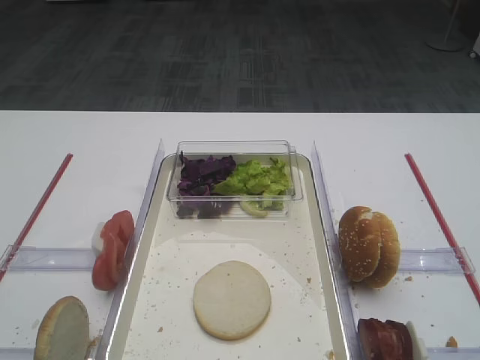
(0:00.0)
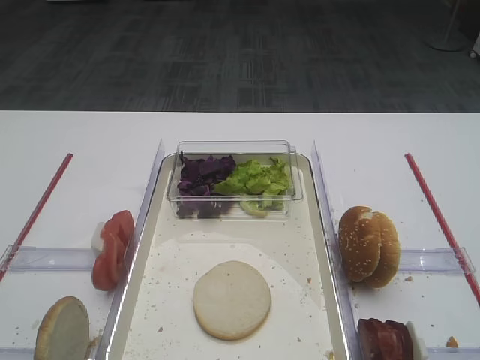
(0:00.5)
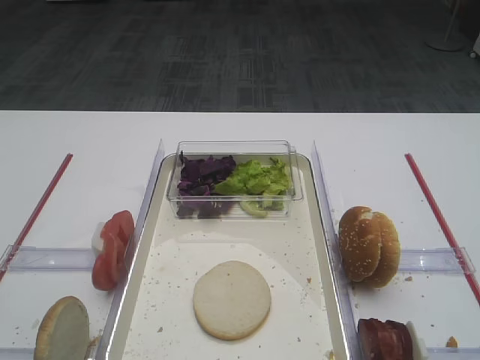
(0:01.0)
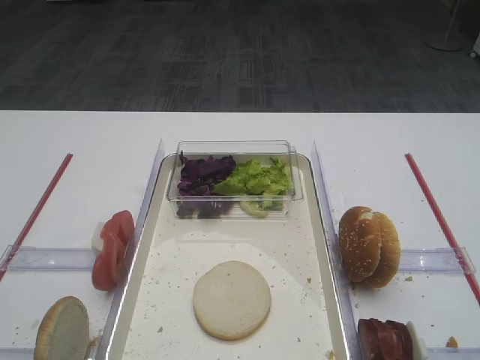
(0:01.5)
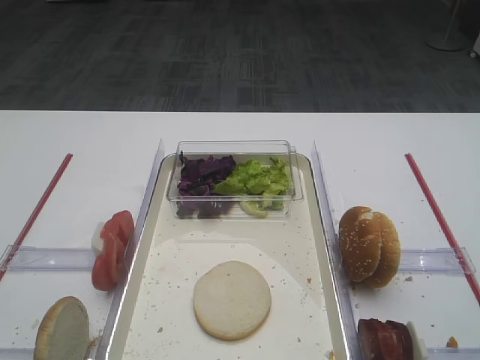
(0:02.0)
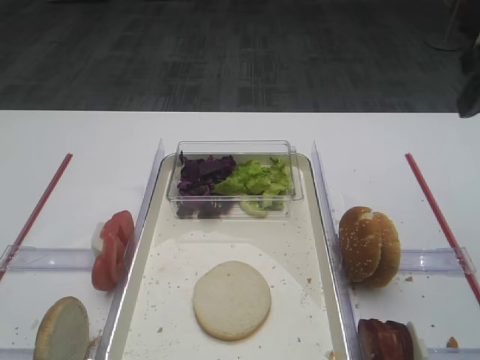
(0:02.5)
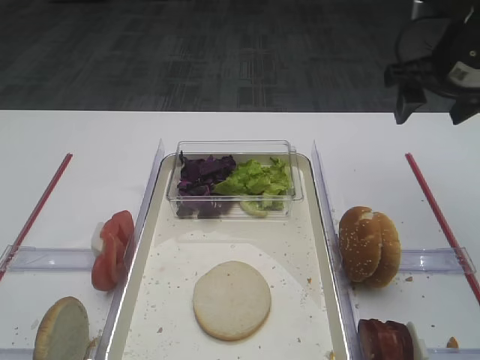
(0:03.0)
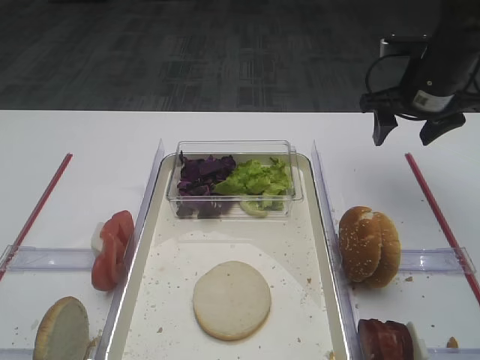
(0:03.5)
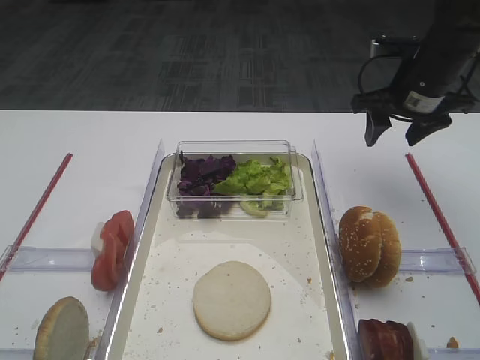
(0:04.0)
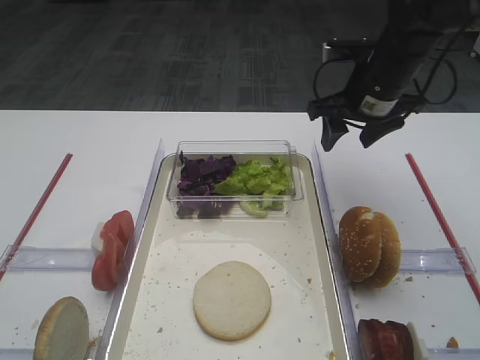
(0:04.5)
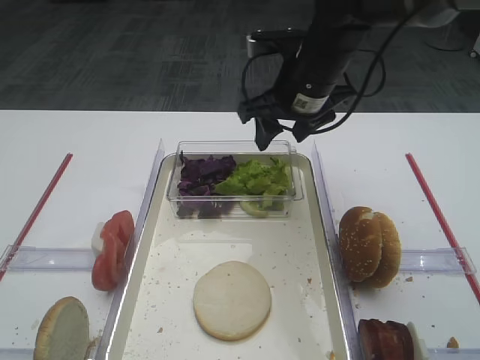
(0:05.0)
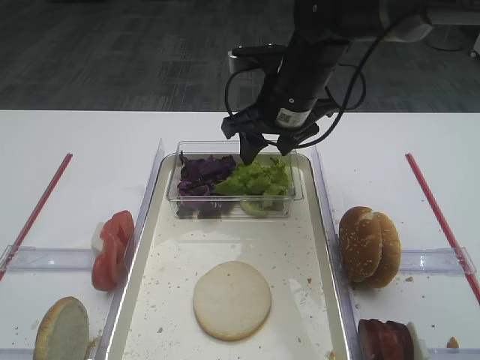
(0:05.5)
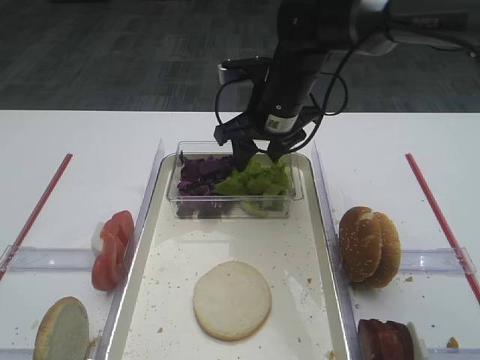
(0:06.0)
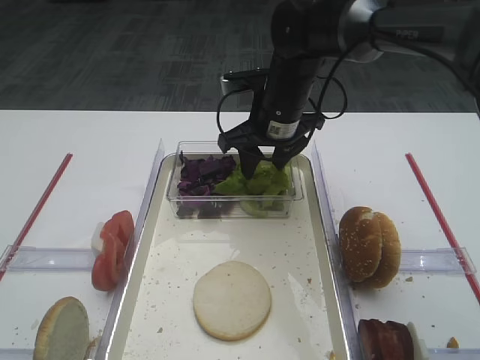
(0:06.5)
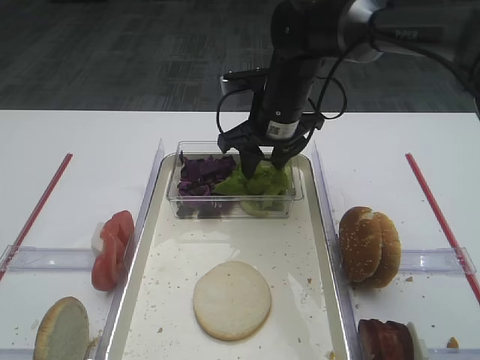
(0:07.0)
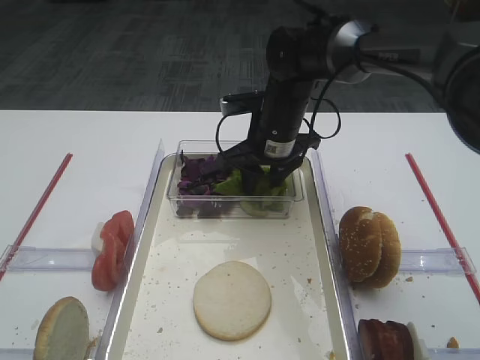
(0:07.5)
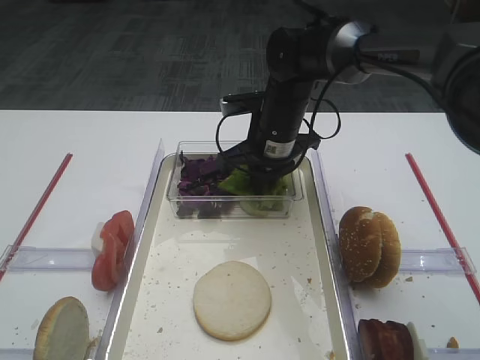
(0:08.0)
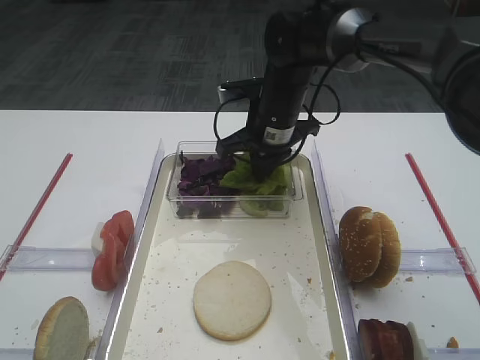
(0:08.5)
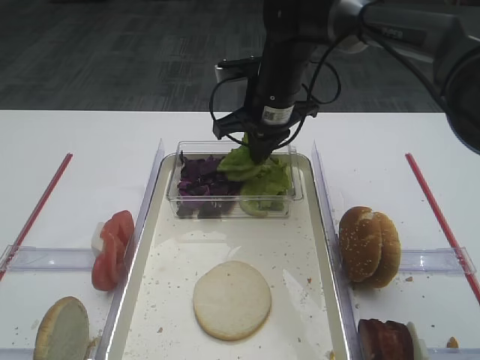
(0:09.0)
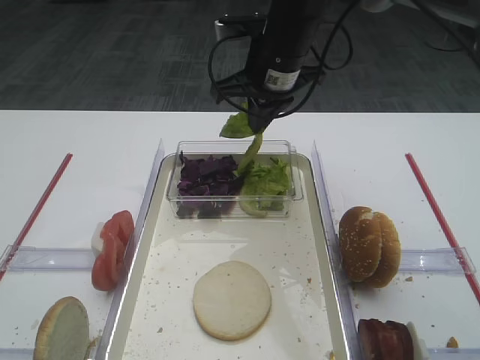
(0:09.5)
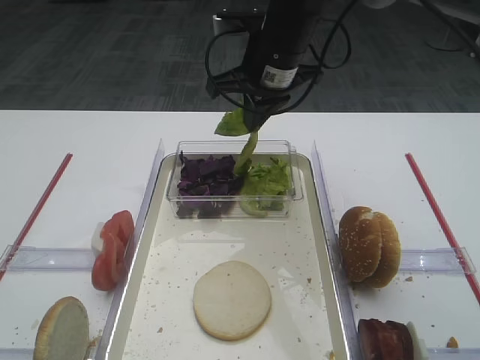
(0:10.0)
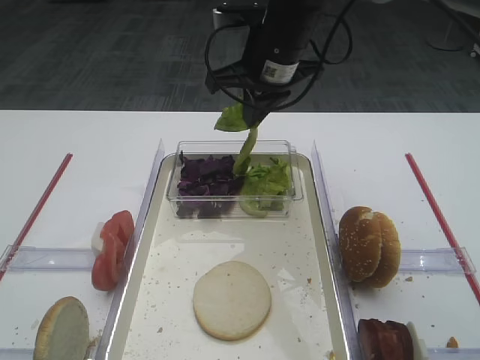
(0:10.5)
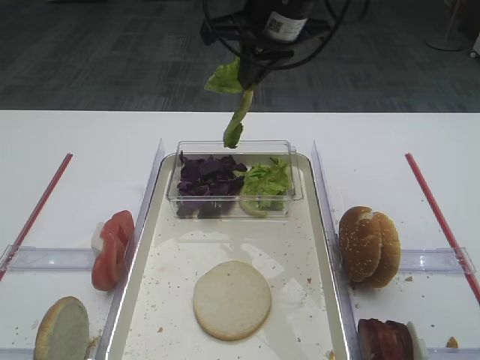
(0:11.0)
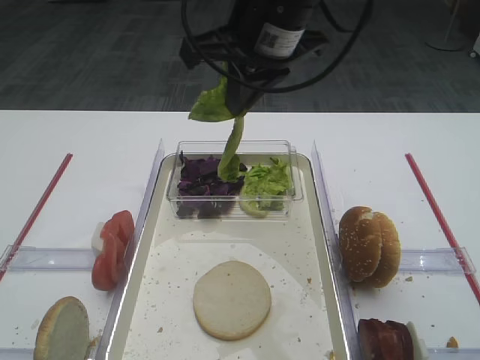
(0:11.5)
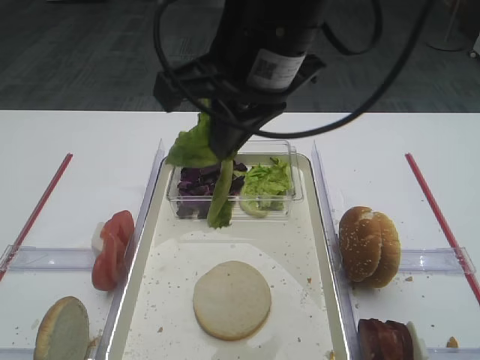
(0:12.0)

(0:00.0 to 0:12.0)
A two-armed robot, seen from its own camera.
Step, 0:00.0 - 0:09.0: Pick up the lettuce leaf with the right gripper.
0:02.0 - 0:04.0: The right gripper is displaced forward by about 35 cm.
0:04.0 - 0:06.0: The right gripper is displaced to the left by some 20 cm.
0:06.0 - 0:08.0: The right gripper closes its fingers.
0:08.0 - 0:10.0: The right gripper travels upward by some 10 cm.
0:10.0 - 0:12.0: The right gripper goes about 20 cm backward and upward.

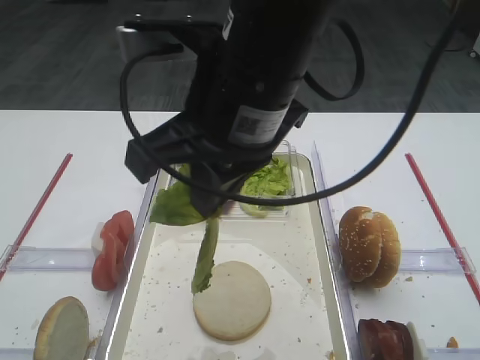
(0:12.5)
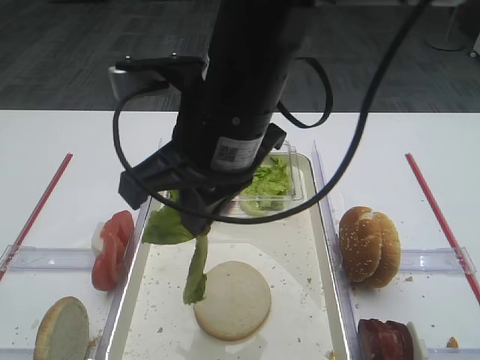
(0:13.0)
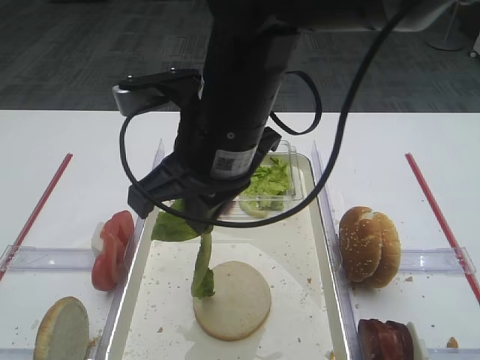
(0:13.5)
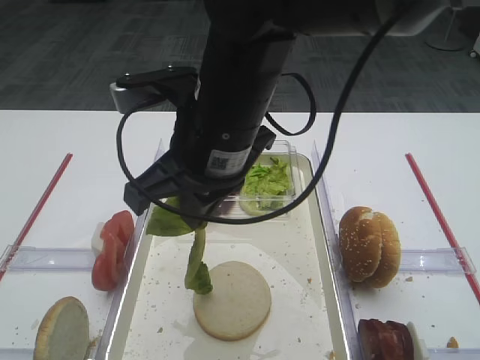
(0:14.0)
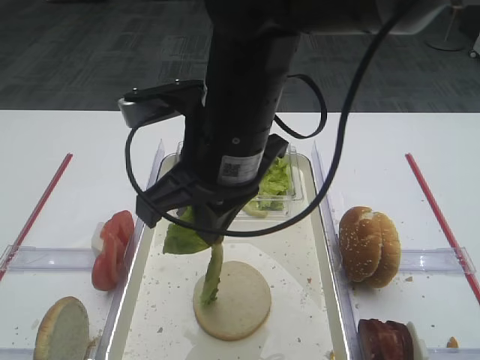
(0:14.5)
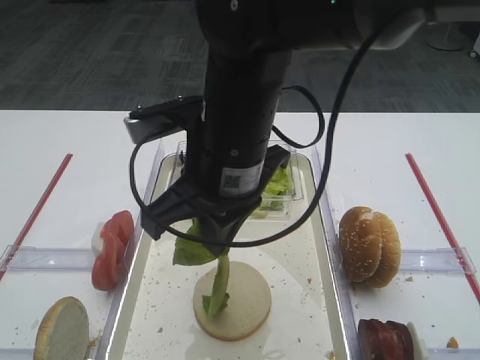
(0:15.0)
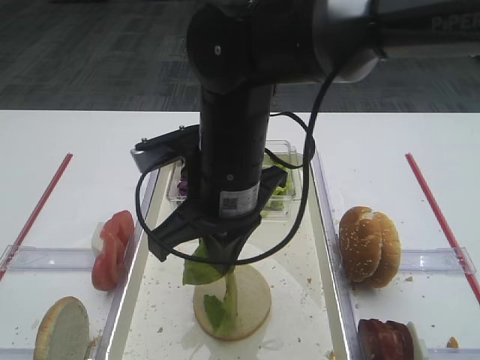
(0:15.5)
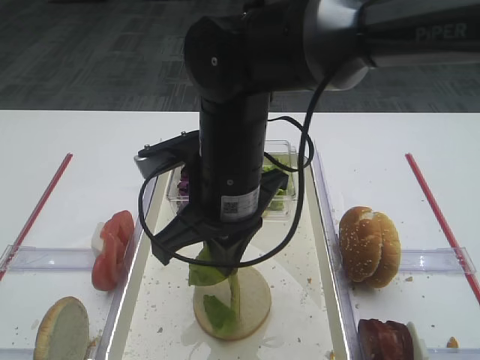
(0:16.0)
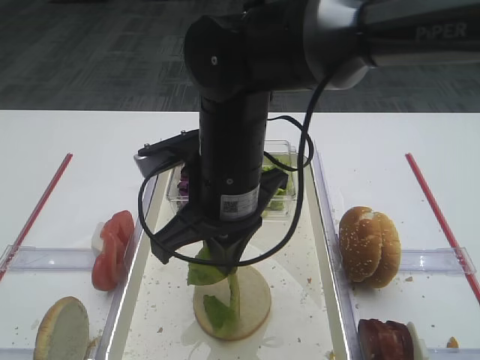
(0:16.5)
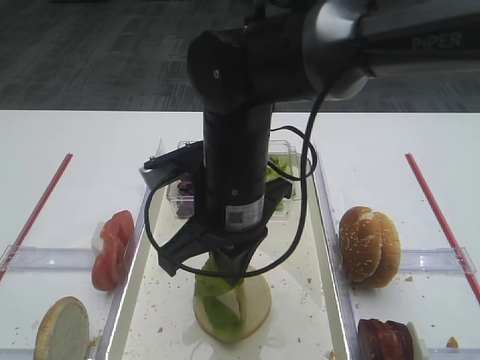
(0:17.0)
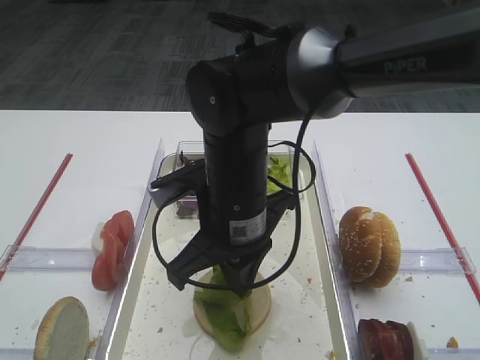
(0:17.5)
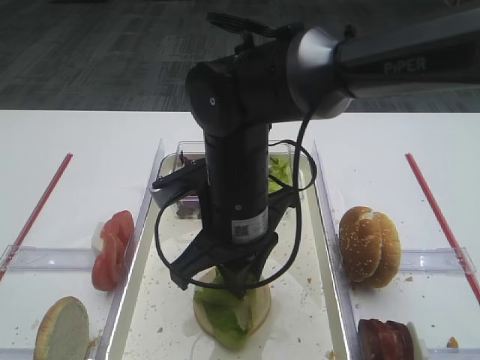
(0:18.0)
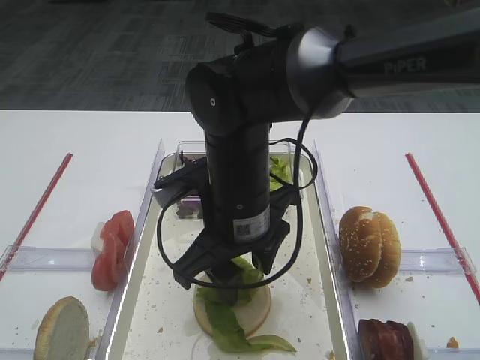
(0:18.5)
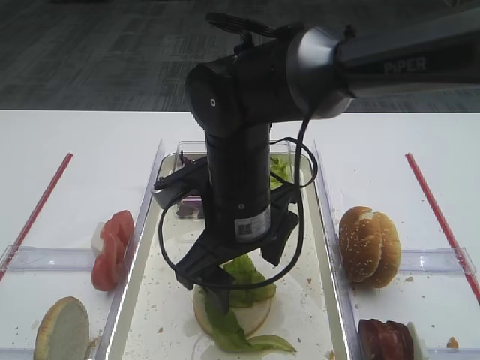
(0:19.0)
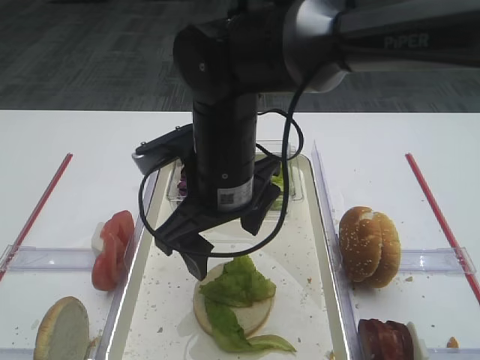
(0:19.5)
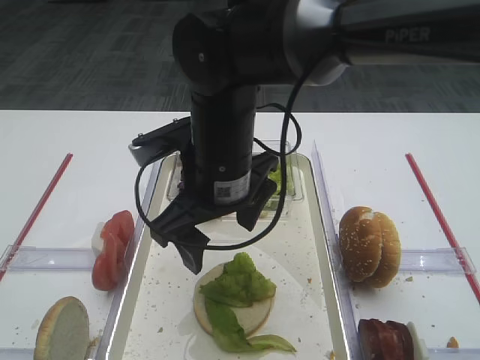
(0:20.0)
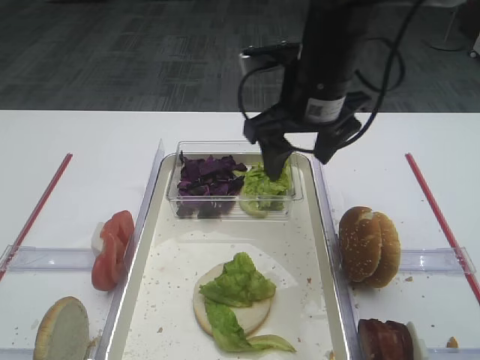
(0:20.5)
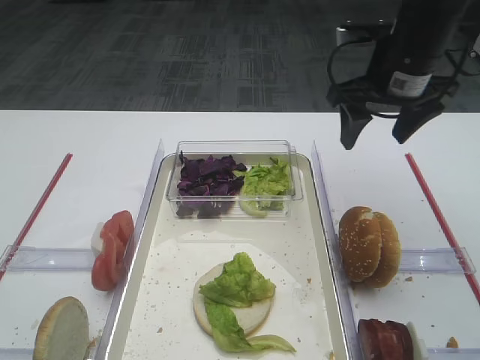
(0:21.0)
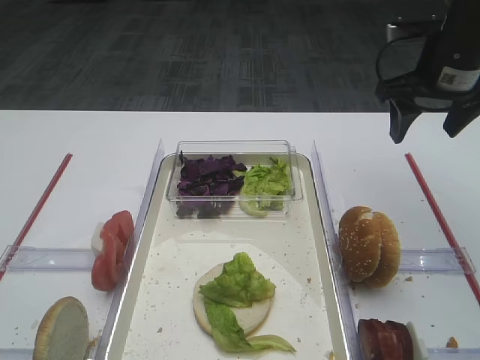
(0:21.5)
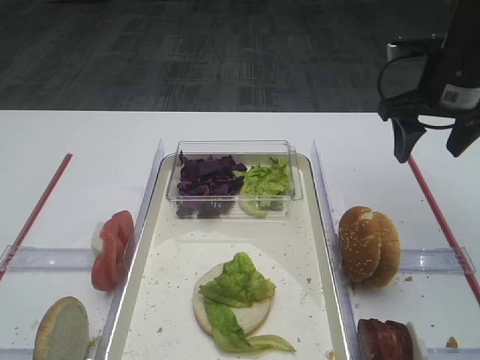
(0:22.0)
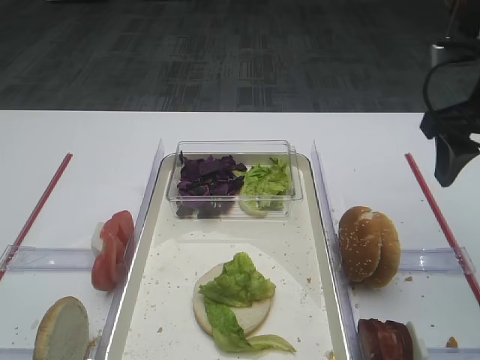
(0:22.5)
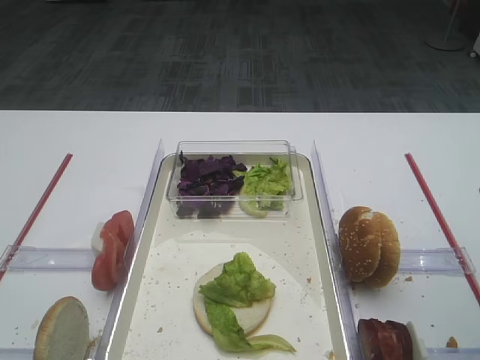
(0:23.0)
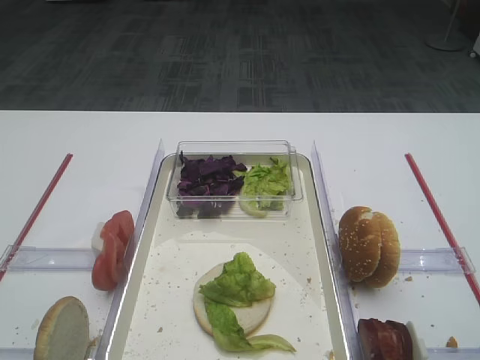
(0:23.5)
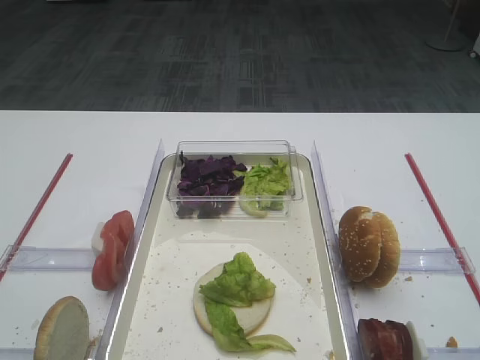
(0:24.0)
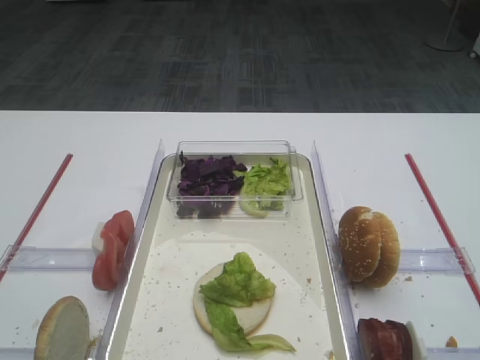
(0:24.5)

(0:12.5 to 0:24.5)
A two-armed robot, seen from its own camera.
Step, 0:12.5 - 0:19.5: Place the lettuce leaf on the bread slice with the right gripper.
0:12.5 - 0:14.5: The right gripper is displaced downward by about 5 cm.
0:14.5 - 0:16.5: The right gripper is displaced downward by roughly 5 cm.
0:16.5 - 0:18.5: The right gripper opens its fingers.
0:18.5 - 0:20.5: The right gripper heads to the right, forward and upward, covering roughly 15 cm.
0:20.5 - 0:22.5: The right gripper is displaced to the right by approximately 20 cm.
0:22.5 - 0:24.5: The right gripper moves backward, roughly 30 cm.

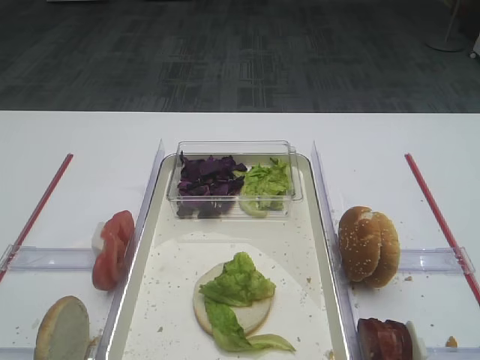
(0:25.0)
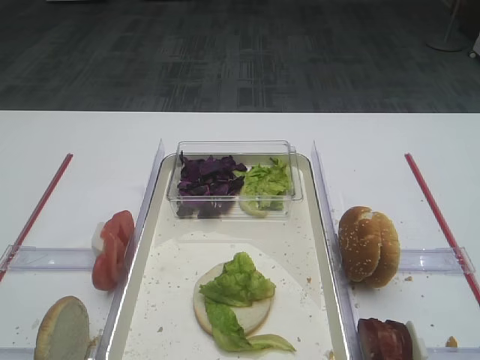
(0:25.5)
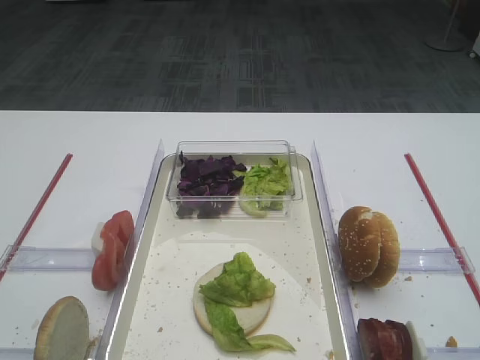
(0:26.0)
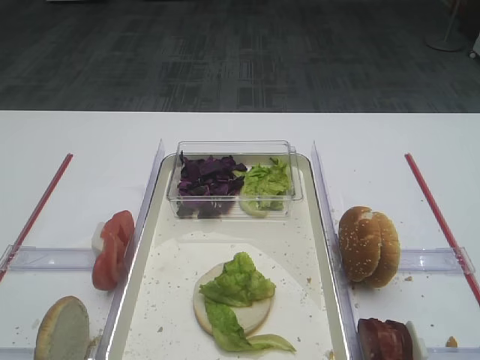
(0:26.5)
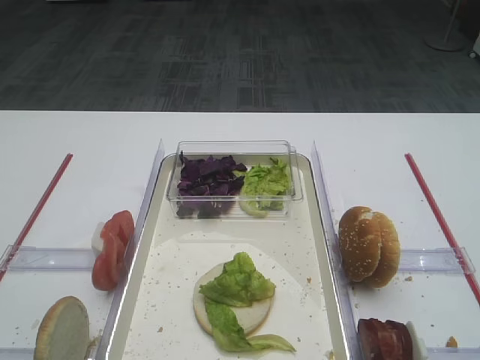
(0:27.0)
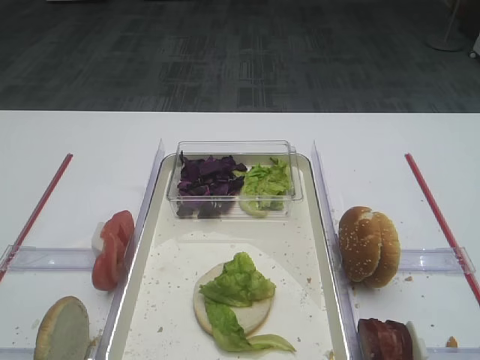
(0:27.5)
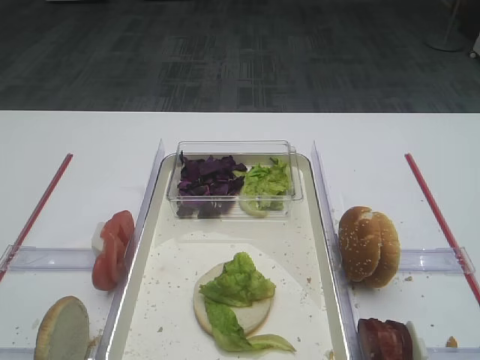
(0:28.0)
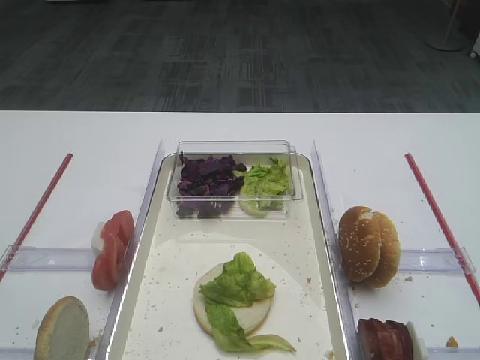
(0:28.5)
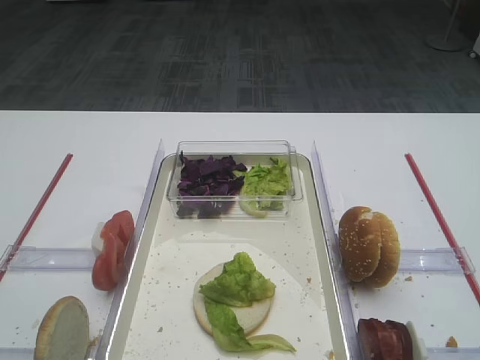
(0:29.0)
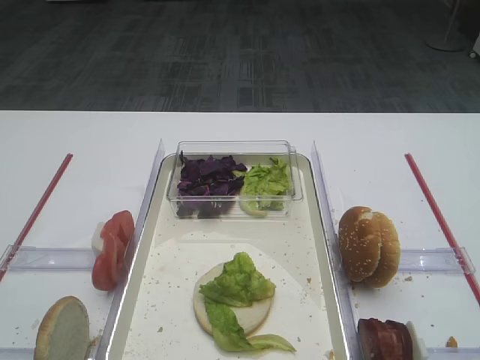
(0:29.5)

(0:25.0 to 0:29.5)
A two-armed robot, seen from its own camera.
0:25.0 - 0:29.5: The two grippers keep their place.
